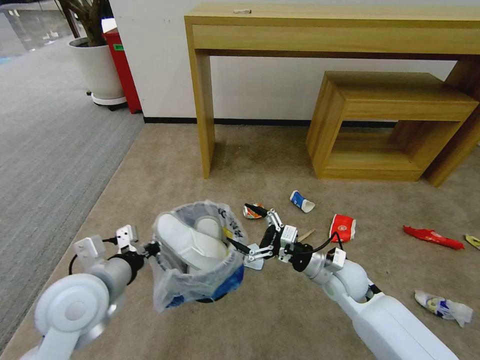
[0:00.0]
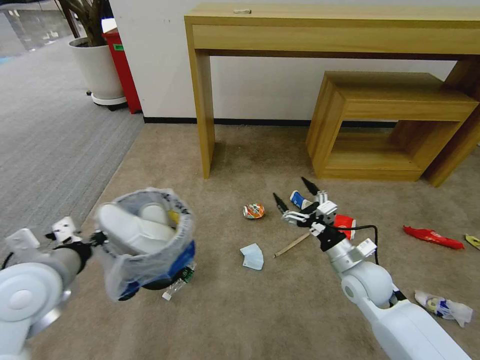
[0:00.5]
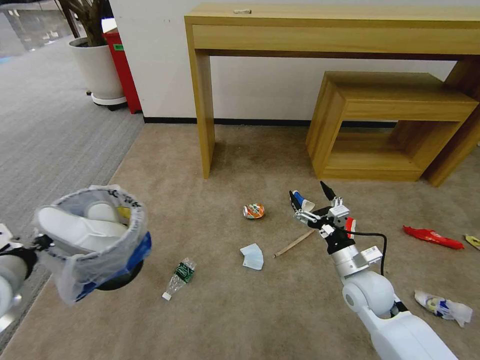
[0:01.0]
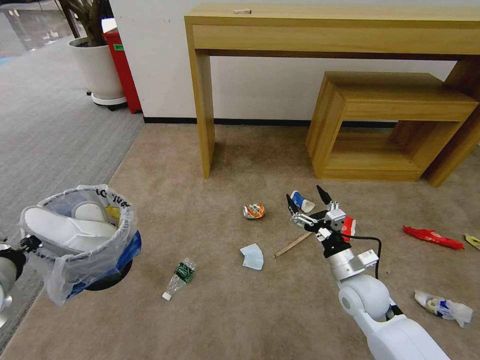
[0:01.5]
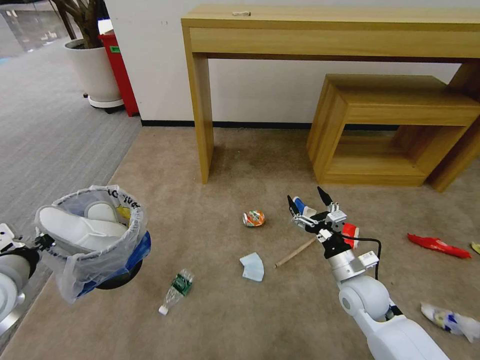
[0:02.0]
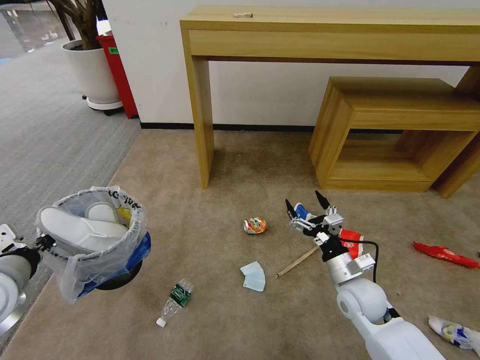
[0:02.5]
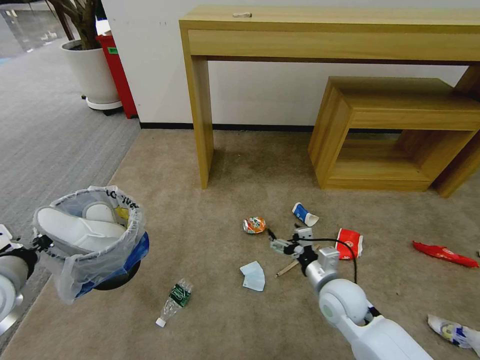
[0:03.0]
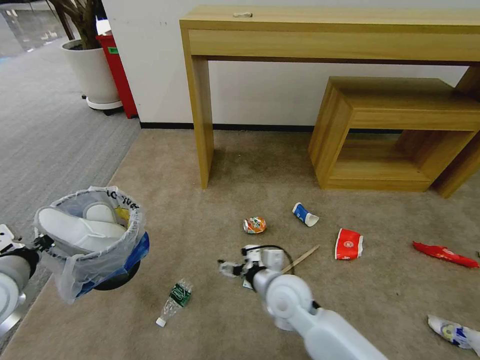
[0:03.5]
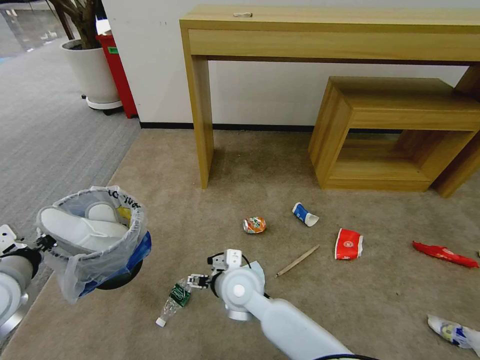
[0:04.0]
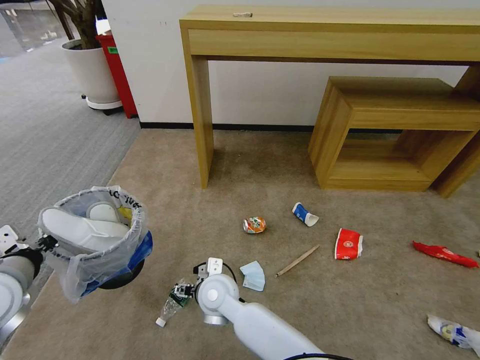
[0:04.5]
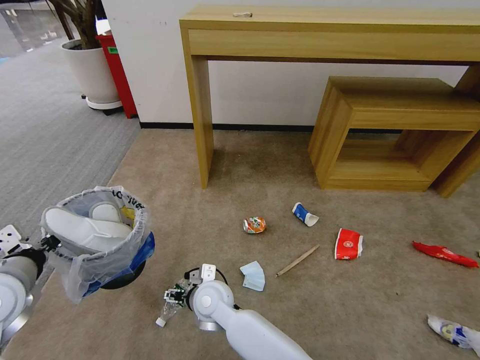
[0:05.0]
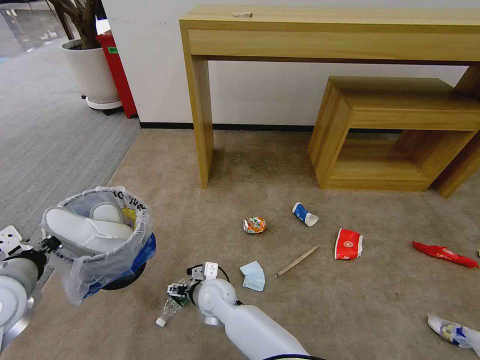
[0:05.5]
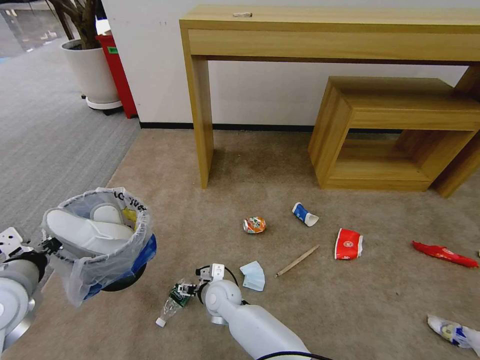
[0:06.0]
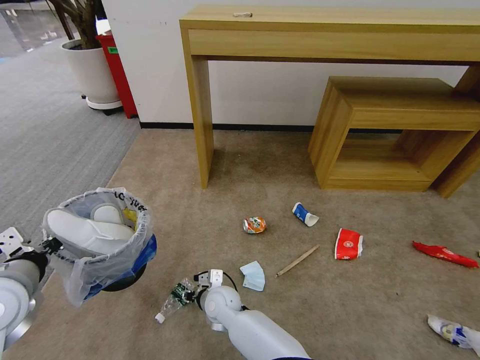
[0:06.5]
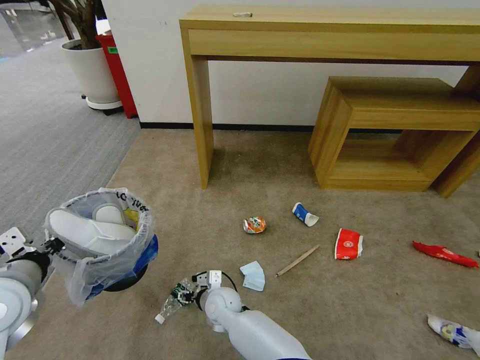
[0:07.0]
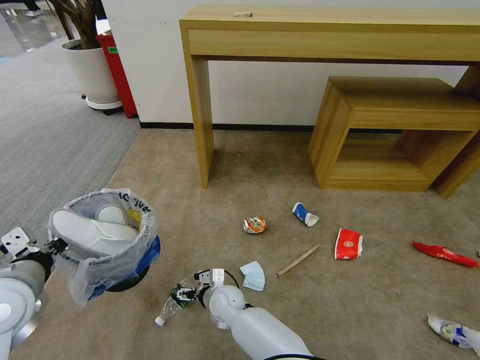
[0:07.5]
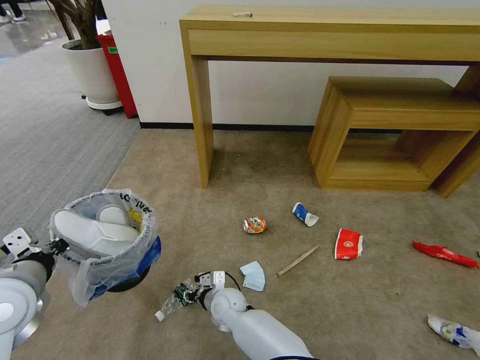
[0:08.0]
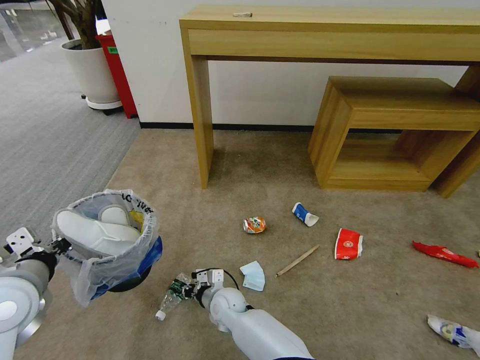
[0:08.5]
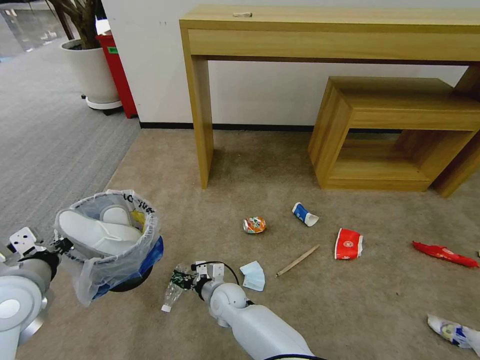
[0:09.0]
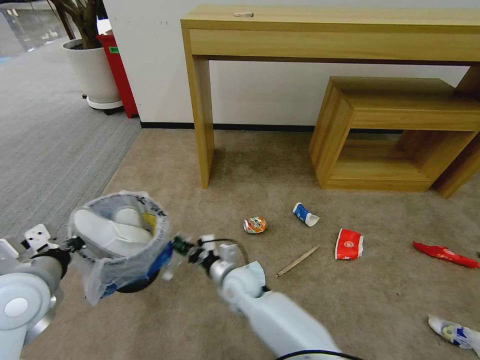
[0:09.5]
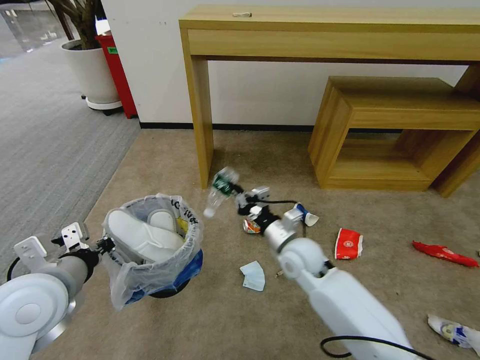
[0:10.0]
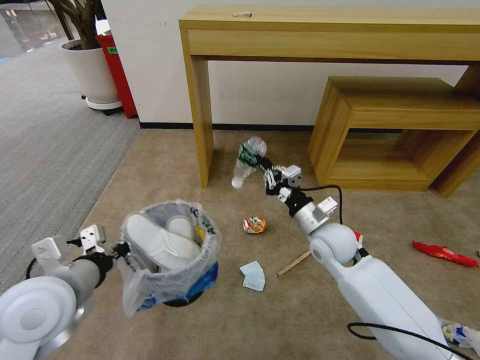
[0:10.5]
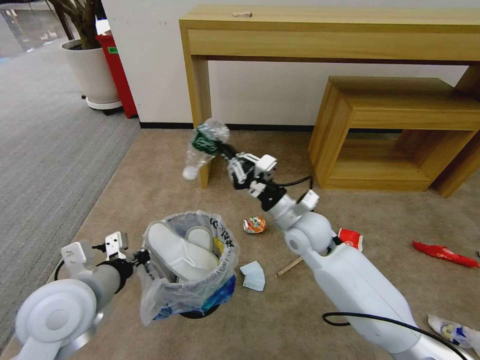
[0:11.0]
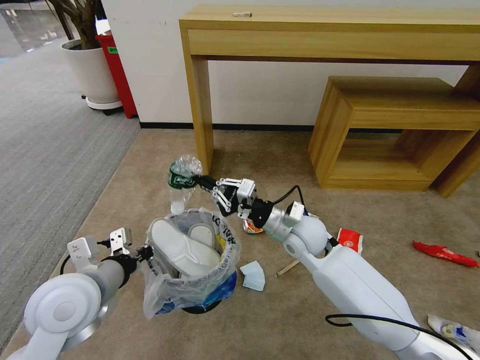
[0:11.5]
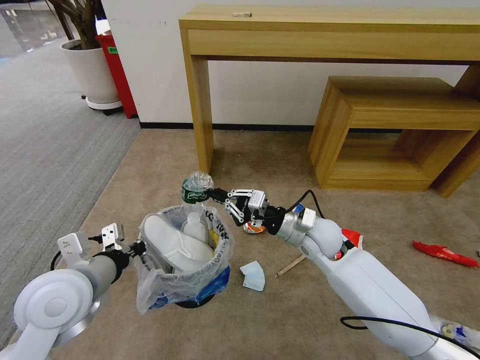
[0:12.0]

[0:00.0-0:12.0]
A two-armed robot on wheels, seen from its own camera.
Task of the whole recording: Pick up the trash bin and place the garbage on the floor into it.
0:00.0 to 0:02.0: The right gripper moves roughly 5 cm. The left gripper shifts roughly 10 cm to the left.
0:02.0 to 0:04.0: The right gripper heads to the left, covering approximately 30 cm.
0:04.0 to 0:06.0: The right gripper travels downward and to the left by about 15 cm.
0:06.0 to 0:08.0: The right gripper closes its fingers.
0:08.0 to 0:10.0: The left gripper goes about 5 cm to the right, while the right gripper heads upward and to the right, covering roughly 25 cm, and closes its fingers.
0:10.0 to 0:12.0: The right gripper moves left and right over roughly 5 cm, changing direction 2 times.

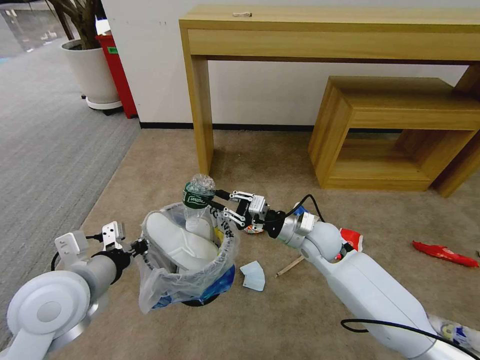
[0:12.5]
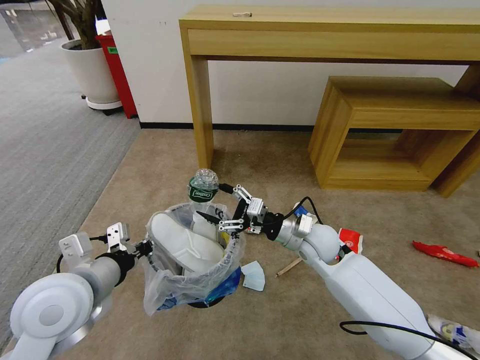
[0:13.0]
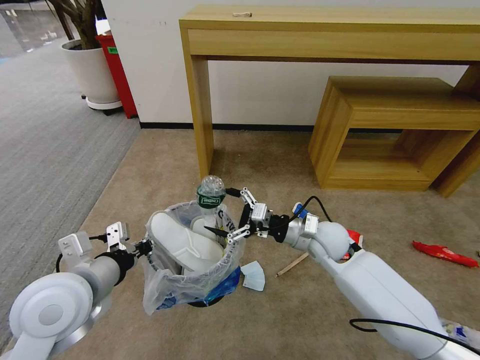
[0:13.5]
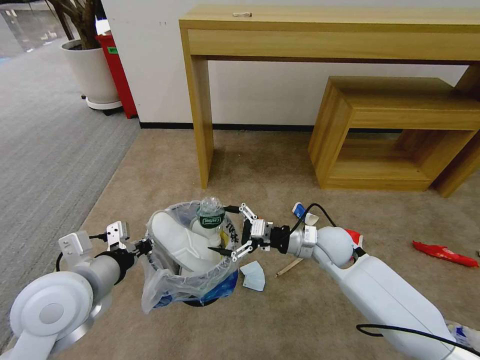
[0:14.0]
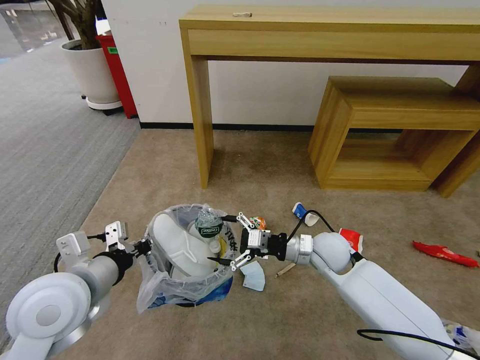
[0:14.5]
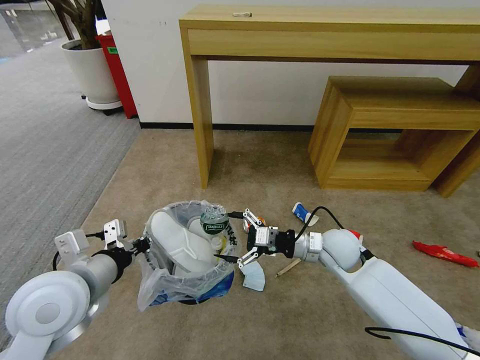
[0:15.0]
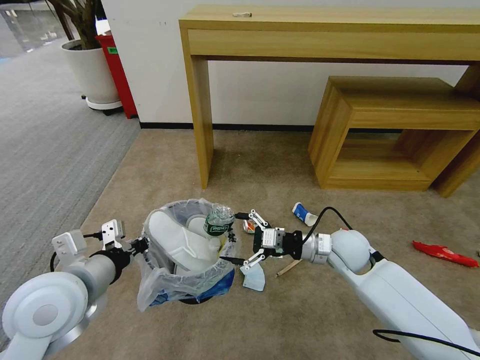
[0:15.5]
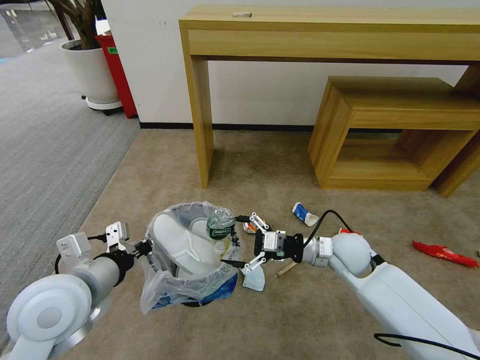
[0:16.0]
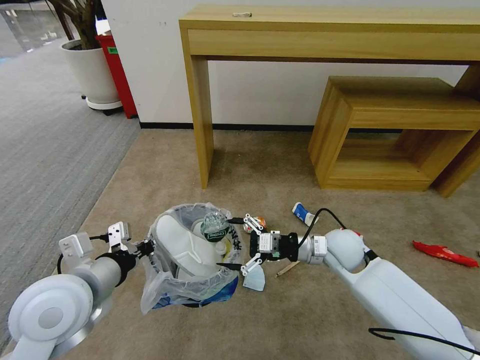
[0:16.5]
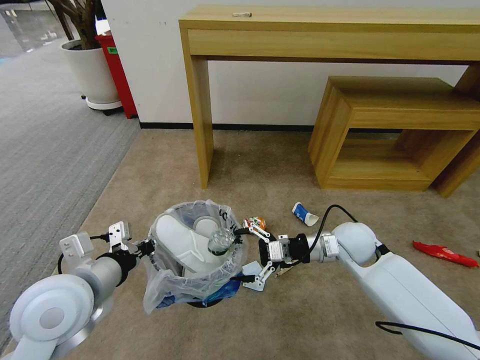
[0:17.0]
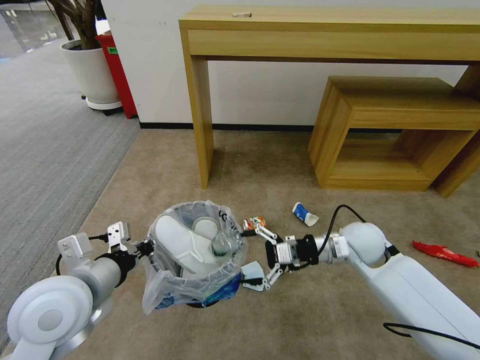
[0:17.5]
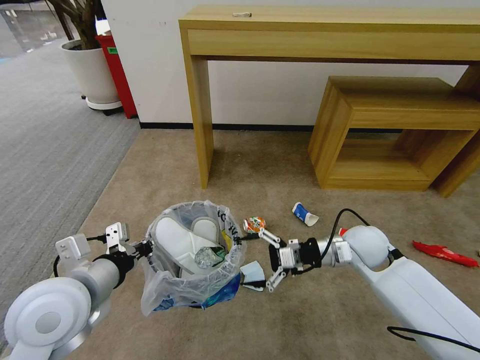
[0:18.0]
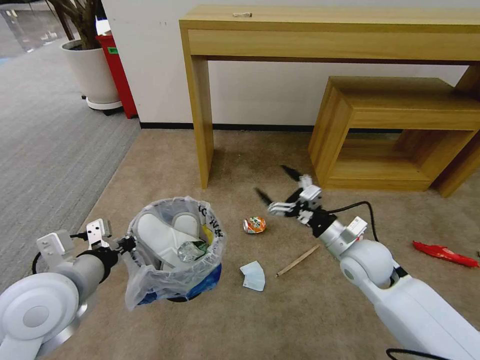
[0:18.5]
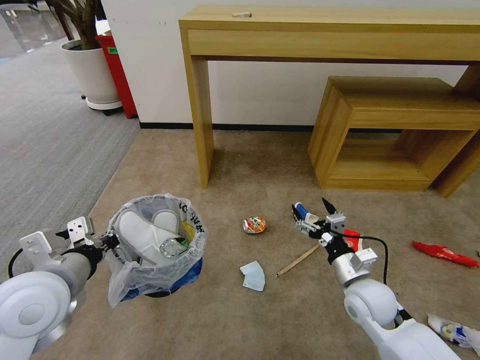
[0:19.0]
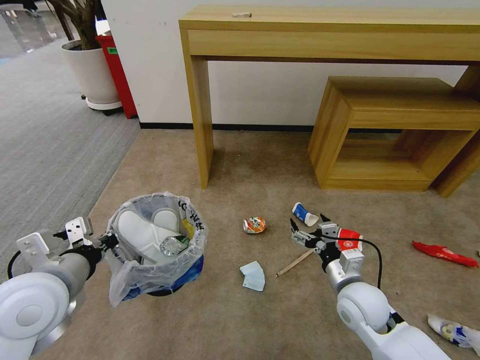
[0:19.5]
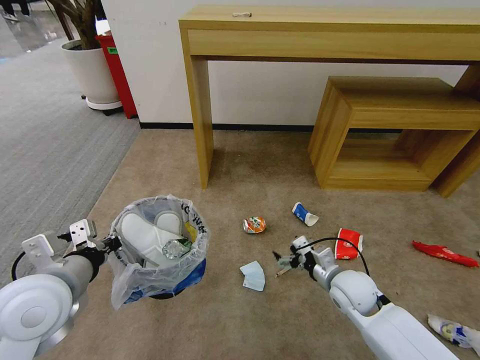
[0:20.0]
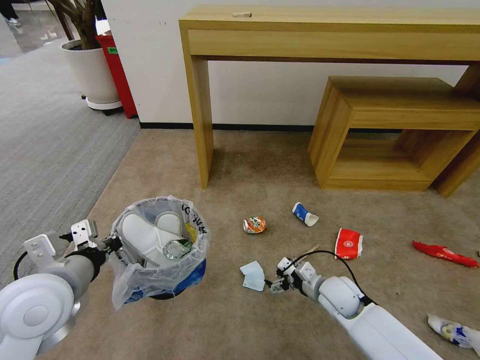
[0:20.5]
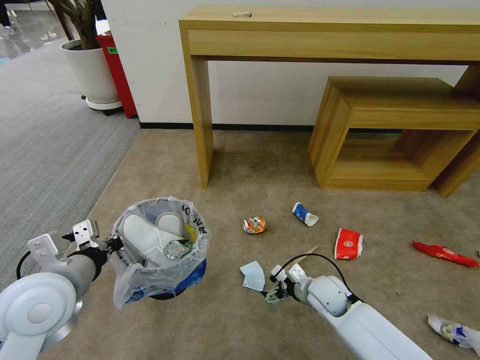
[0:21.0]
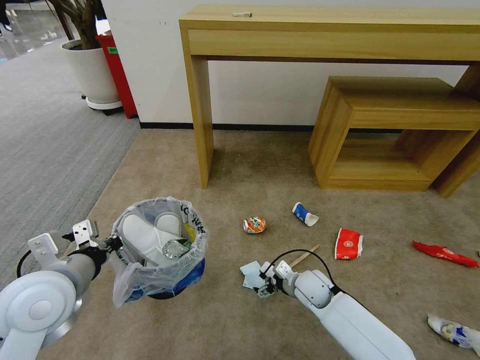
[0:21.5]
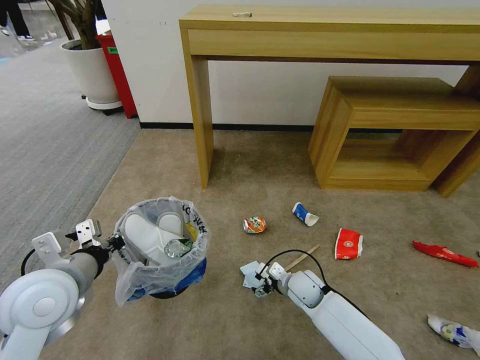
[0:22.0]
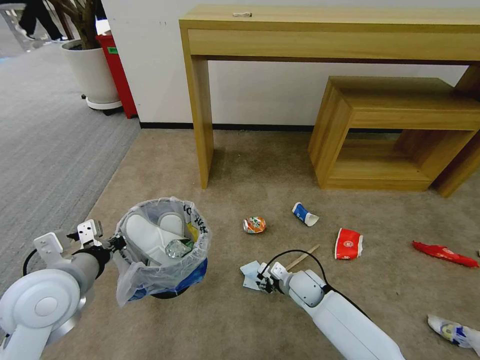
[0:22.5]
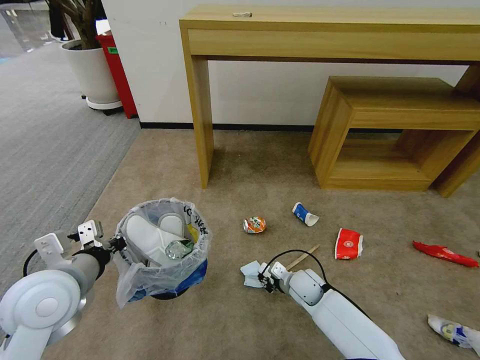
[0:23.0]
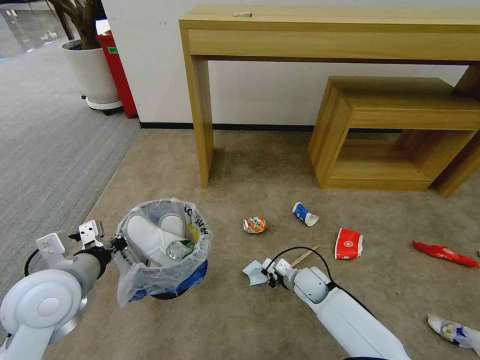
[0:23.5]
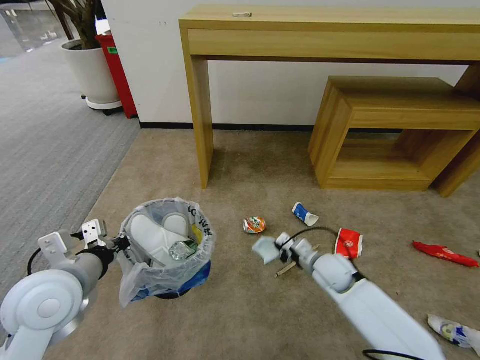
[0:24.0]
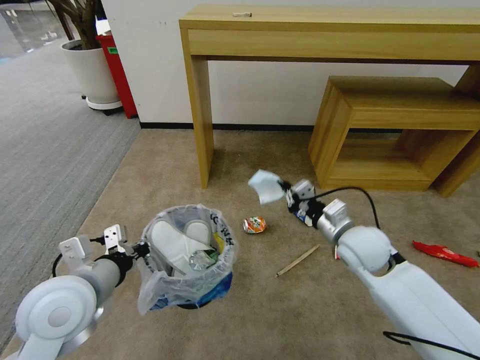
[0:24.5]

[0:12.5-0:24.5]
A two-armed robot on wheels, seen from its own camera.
Task of the whole recording: Pick up the trash bin and place the garbage on the floor into it.
0:12.5 to 0:14.5: The right gripper opens its fingers.
0:14.5 to 0:16.5: The grippers move only a little.
0:16.5 to 0:18.5: The right gripper moves approximately 5 cm.
0:18.5 to 0:20.5: The right gripper goes some 15 cm downward.
0:20.5 to 0:22.5: The right gripper heads to the left and downward, covering about 10 cm, and closes up.
0:22.5 to 0:24.5: The right gripper moves upward, roughly 20 cm, and closes its fingers.

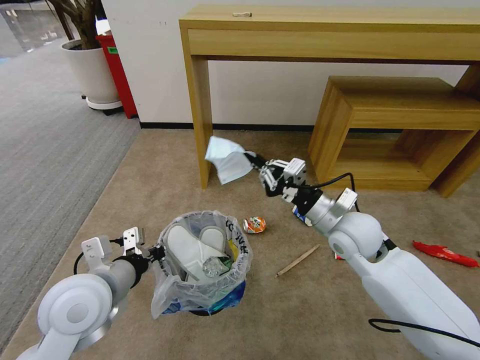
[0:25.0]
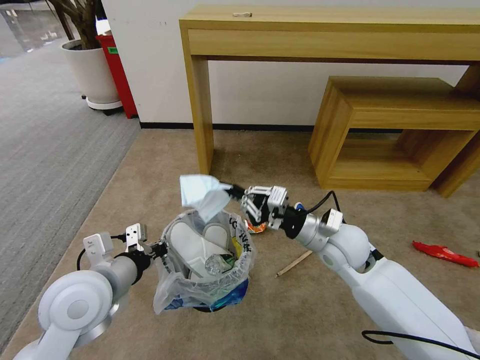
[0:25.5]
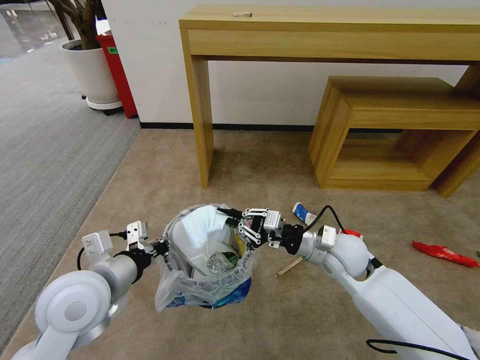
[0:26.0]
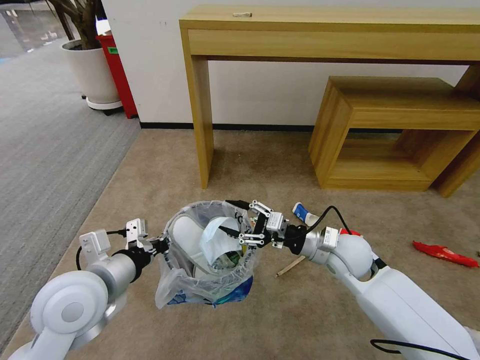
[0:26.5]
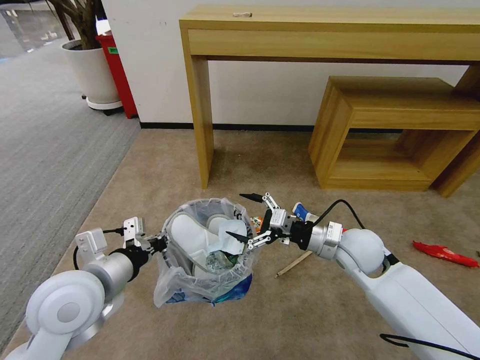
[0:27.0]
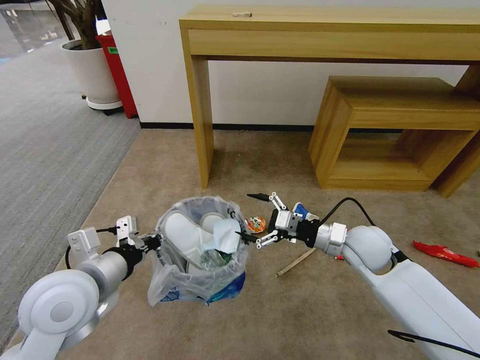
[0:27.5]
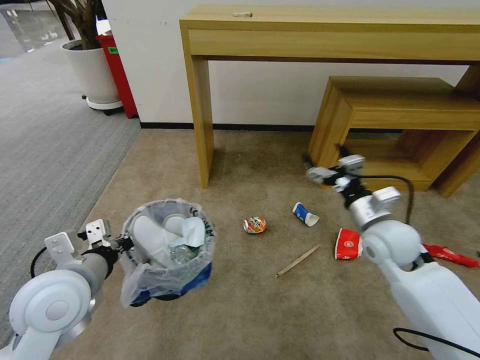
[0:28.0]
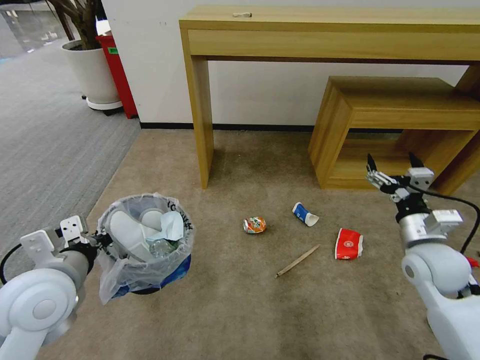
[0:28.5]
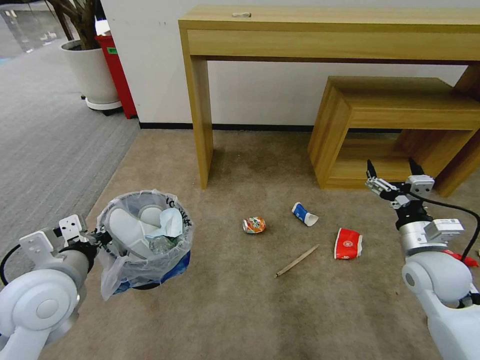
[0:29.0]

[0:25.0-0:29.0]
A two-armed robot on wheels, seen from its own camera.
Task of the whole recording: Pick up the trash bin and place the garbage on the floor into it.
0:25.0 to 0:27.0: The right gripper ends up approximately 5 cm from where it was, and opens its fingers.
0:27.0 to 0:29.0: The right gripper is displaced to the right and backward by roughly 15 cm.
